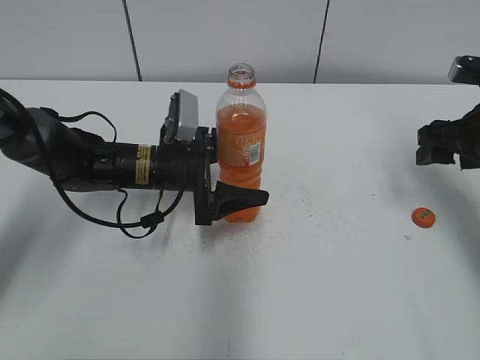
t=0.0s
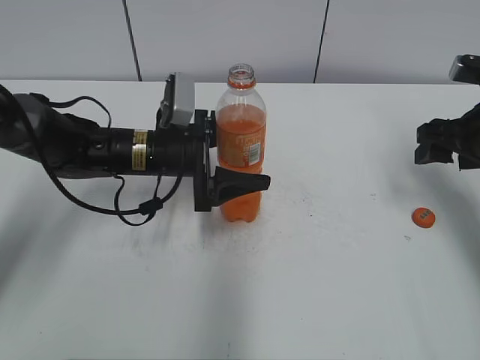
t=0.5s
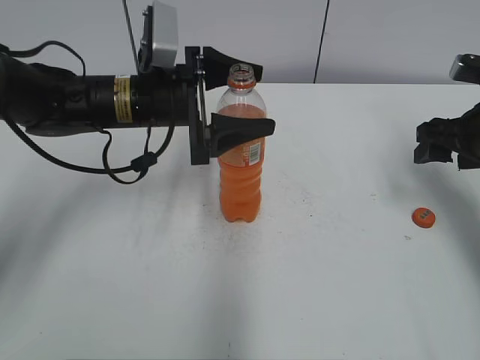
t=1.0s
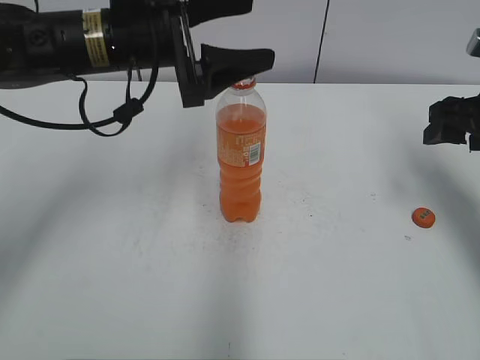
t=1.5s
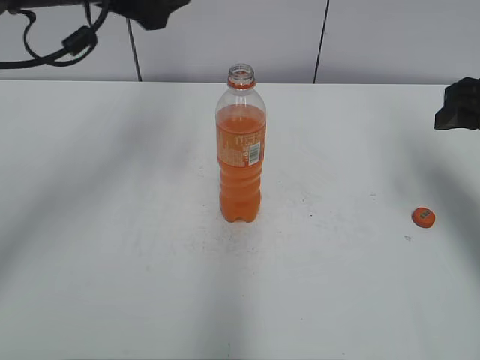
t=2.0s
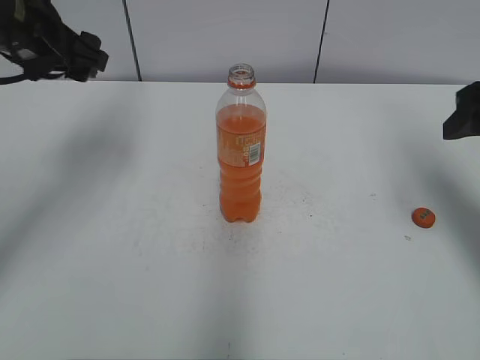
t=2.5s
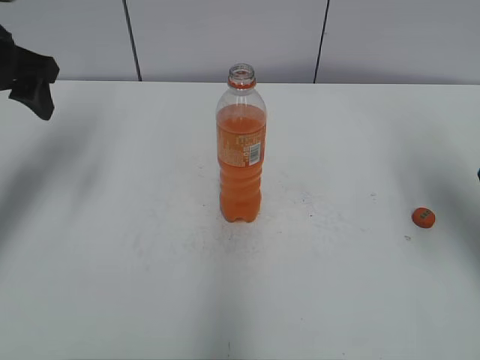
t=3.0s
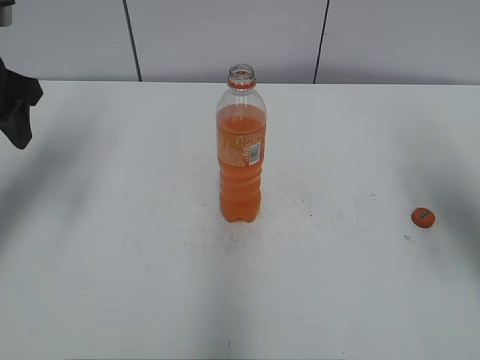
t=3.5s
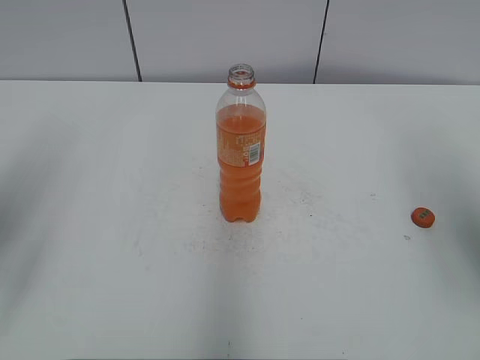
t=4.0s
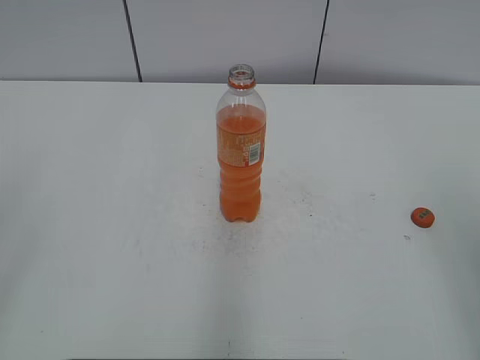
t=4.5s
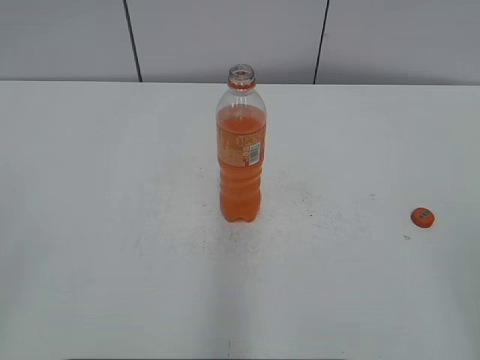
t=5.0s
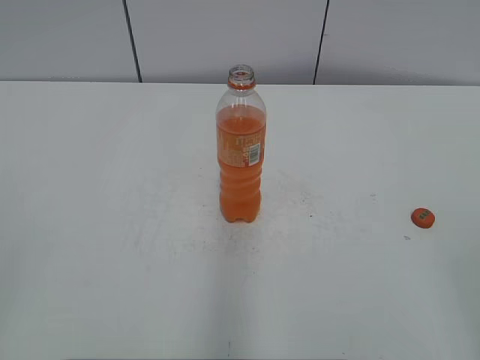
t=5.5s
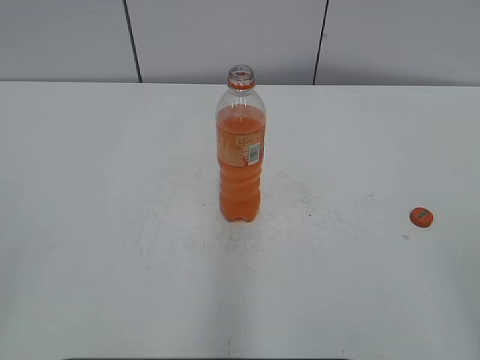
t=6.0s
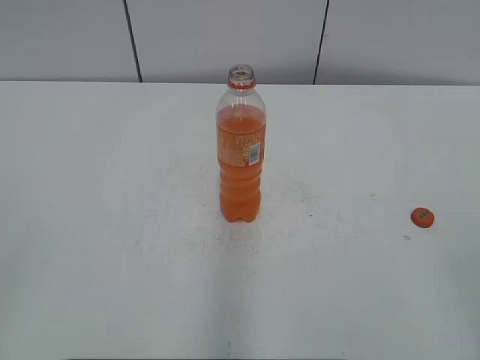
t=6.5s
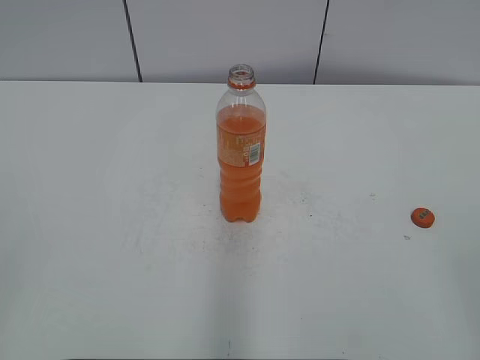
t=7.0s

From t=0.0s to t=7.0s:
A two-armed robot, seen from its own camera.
From t=0.0s to t=2.0s: The right gripper goes about 5 cm upward. The left gripper moves upward, some 25 cm.
From t=2.0s to t=3.5s: The left gripper goes approximately 10 cm to the left, while the right gripper travels backward by some 5 cm.
From t=3.5s to t=5.0s: The grippers both shift backward by about 25 cm.

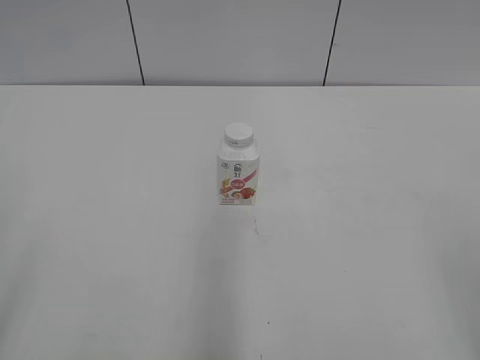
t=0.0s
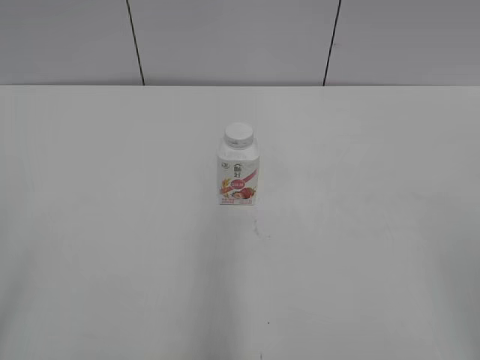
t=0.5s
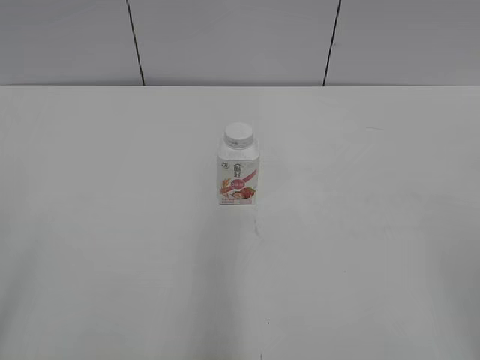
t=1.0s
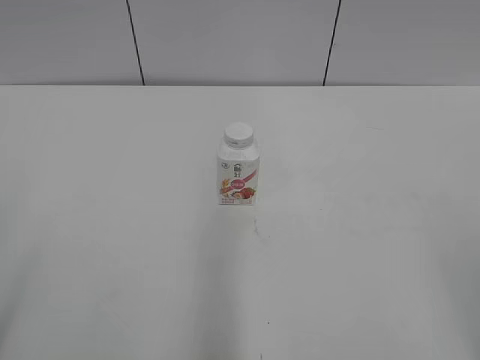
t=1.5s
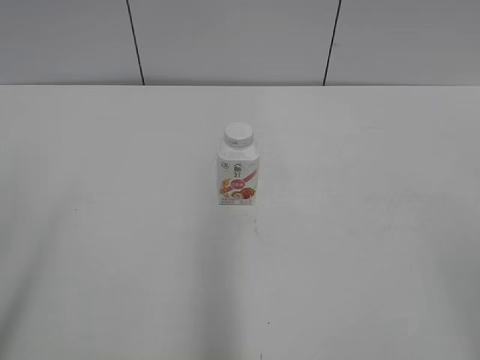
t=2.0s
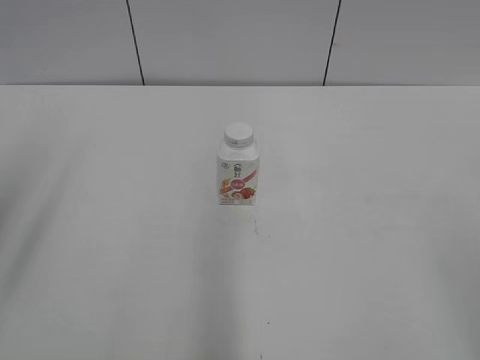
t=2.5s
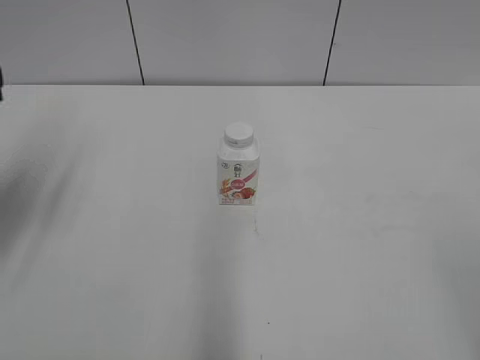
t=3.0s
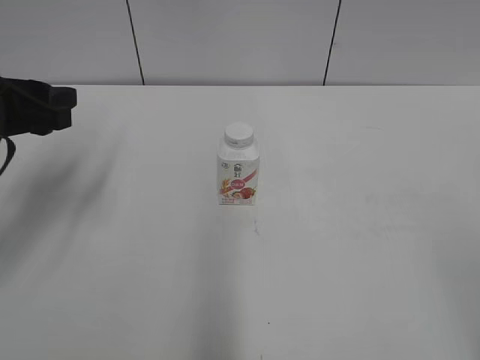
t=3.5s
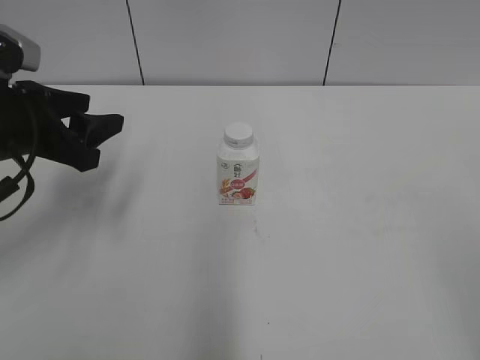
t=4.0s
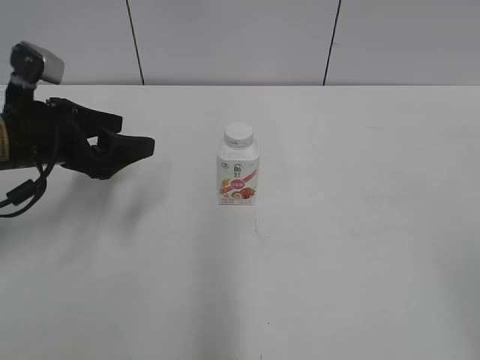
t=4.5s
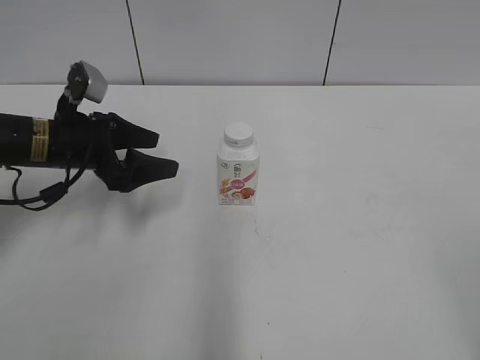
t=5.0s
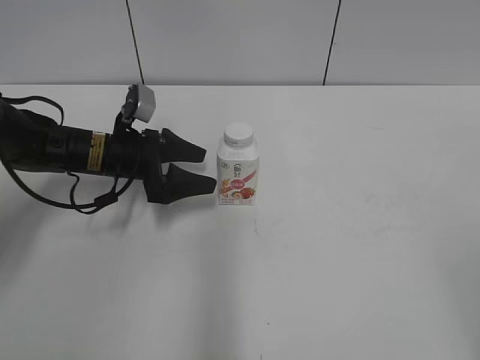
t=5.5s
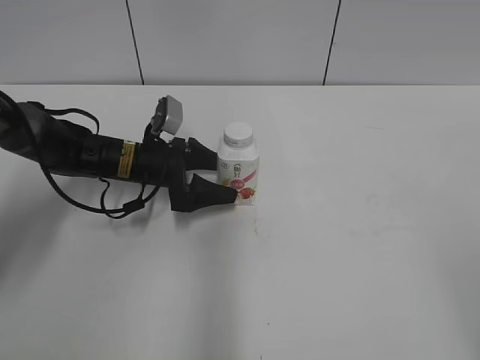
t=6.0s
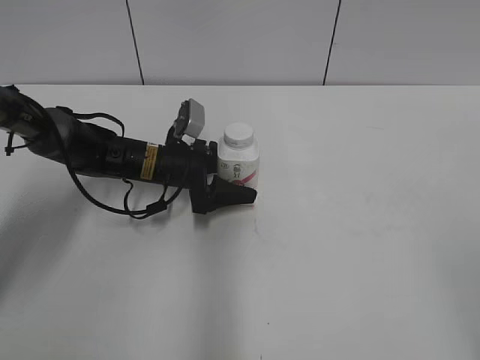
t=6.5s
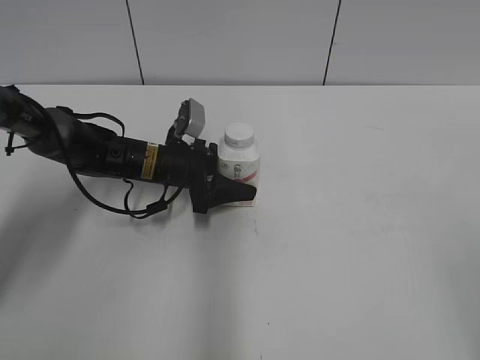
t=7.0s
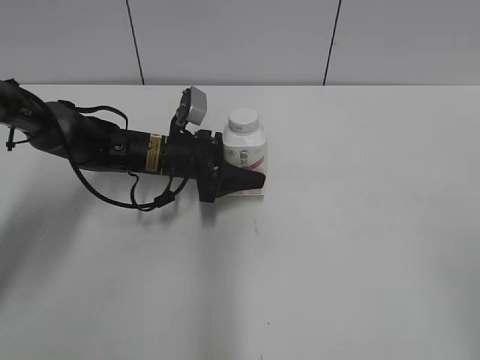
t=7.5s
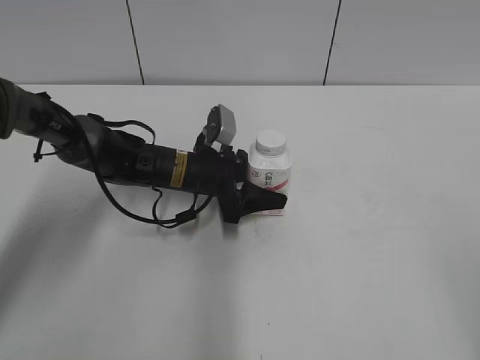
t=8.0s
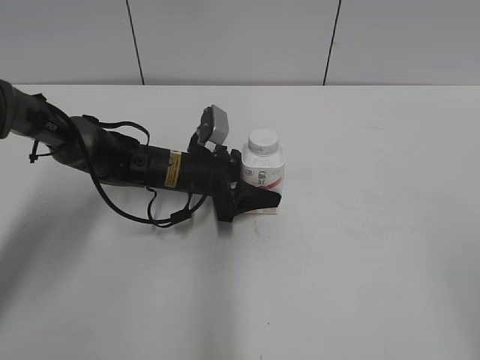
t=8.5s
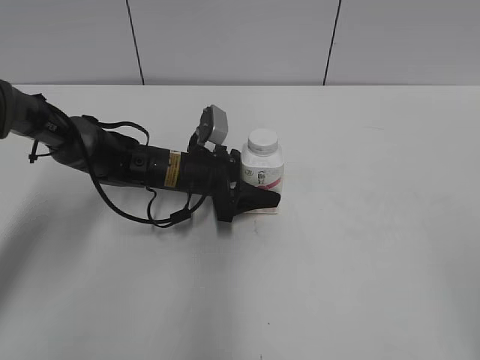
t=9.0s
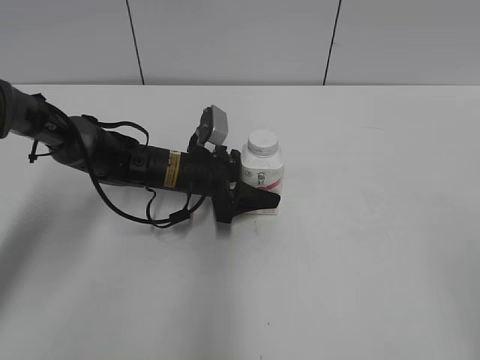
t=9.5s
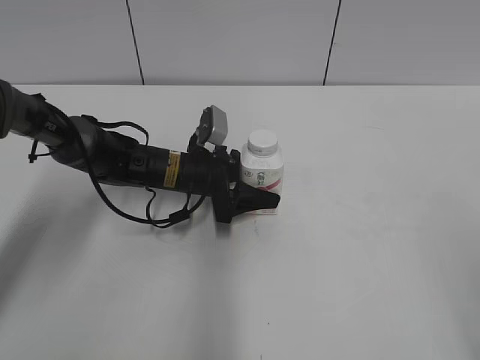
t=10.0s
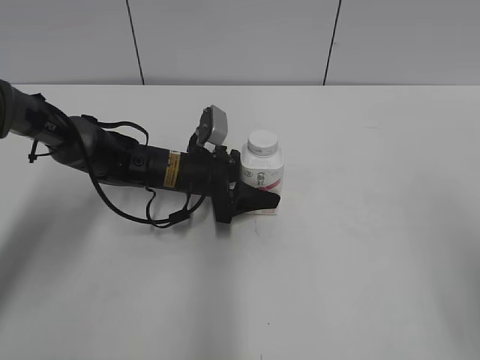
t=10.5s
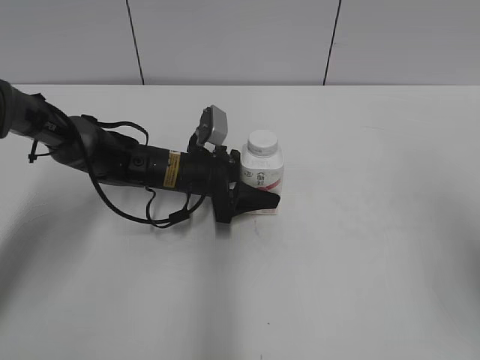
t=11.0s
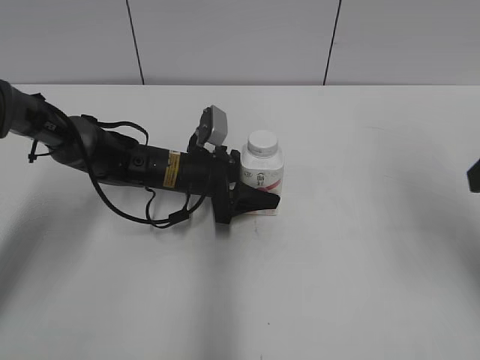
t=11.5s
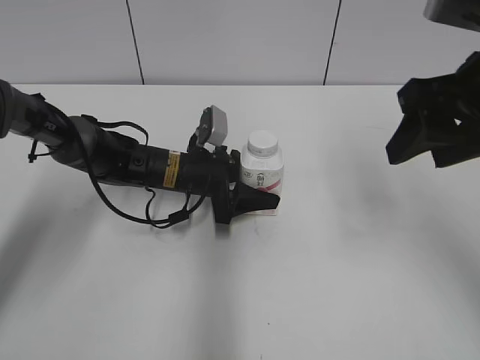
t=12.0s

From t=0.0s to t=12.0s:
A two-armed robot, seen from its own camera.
Step, from t=0.0s to t=6.5s: Grasp the bottle and move it to the center of the table with the left gripper.
Step, from t=7.0s to t=8.0s: Lift the bottle and move it to the center of the table with the left gripper.
From t=2.0s to t=4.0s: The left gripper heads forward and downward, covering roughly 30 cm.
From t=4.0s to t=6.0s: The left gripper goes some 20 cm downward, forward and to the right, and opens up.
From t=6.0s to t=8.0s: The left gripper is displaced to the right by approximately 5 cm, and closes up.
From t=8.0s to t=10.0s: The grippers move only a little.
From t=10.0s to t=12.0s: The right gripper travels forward by about 25 cm.

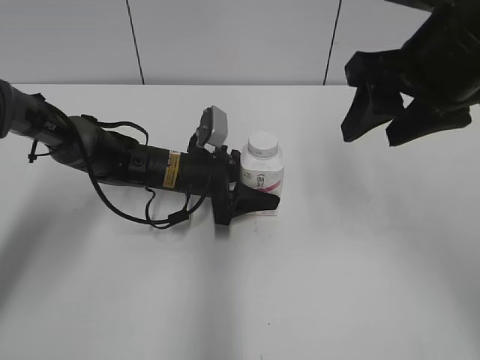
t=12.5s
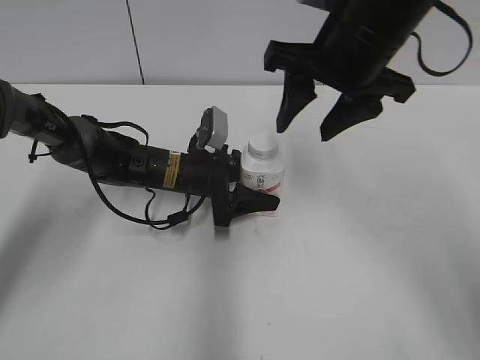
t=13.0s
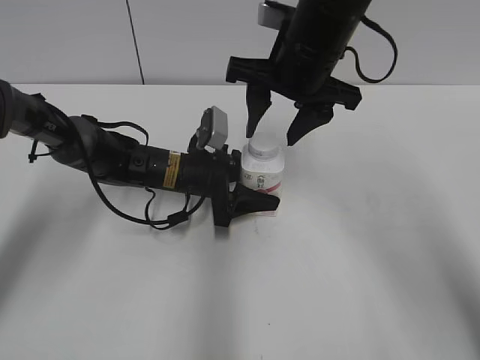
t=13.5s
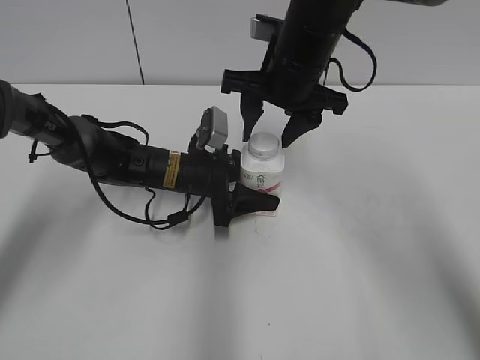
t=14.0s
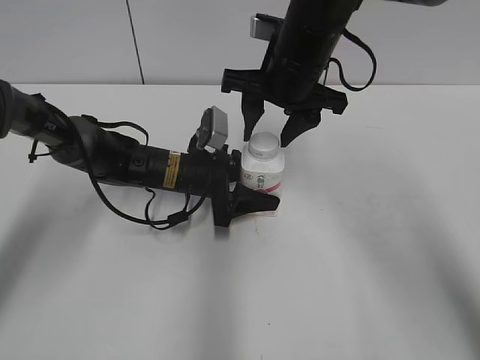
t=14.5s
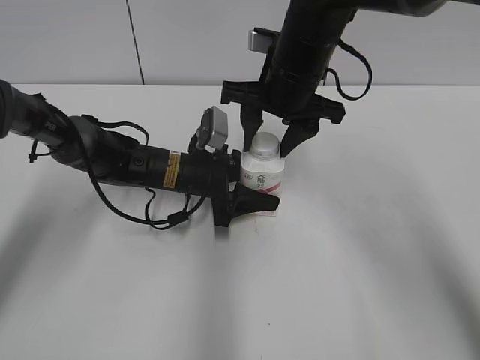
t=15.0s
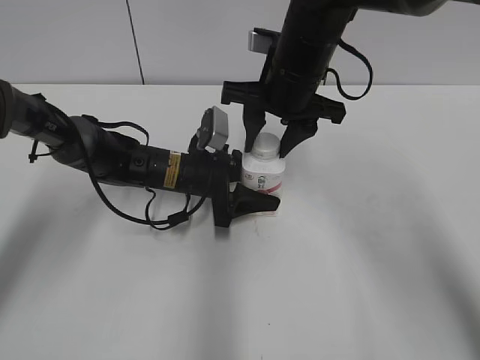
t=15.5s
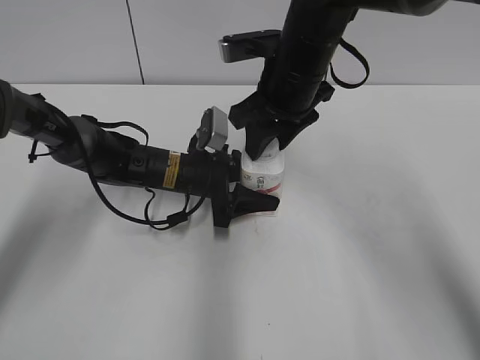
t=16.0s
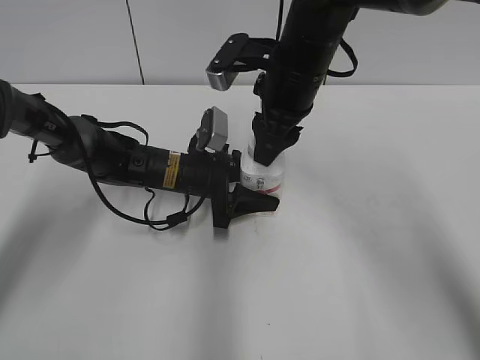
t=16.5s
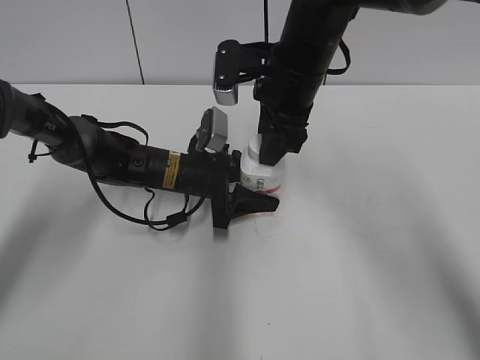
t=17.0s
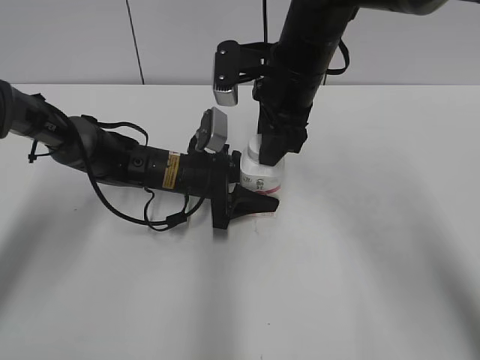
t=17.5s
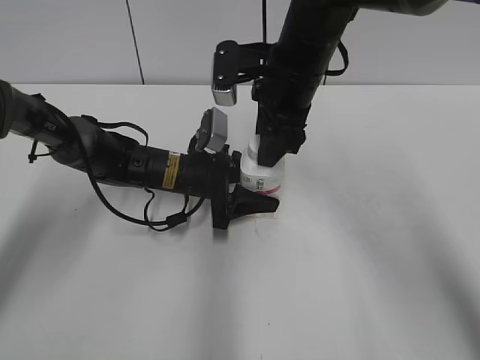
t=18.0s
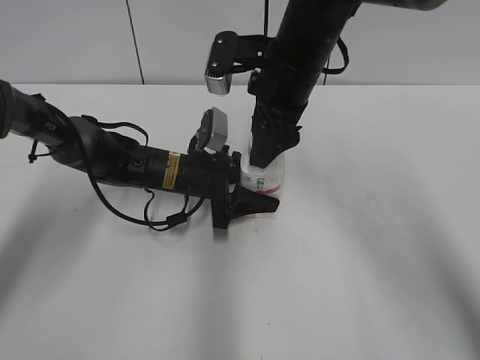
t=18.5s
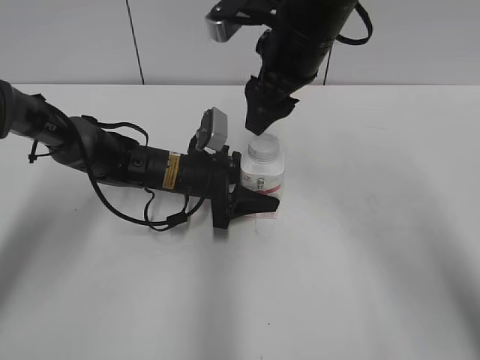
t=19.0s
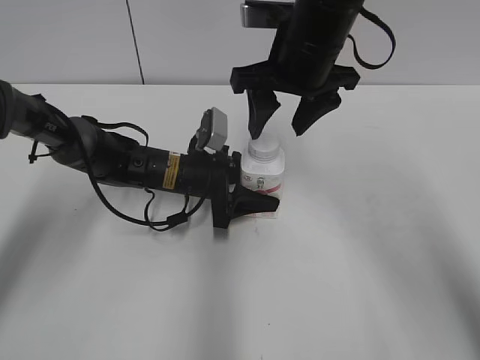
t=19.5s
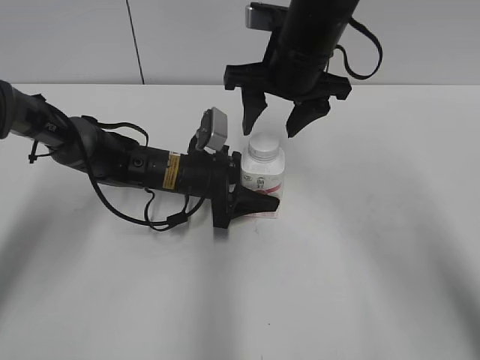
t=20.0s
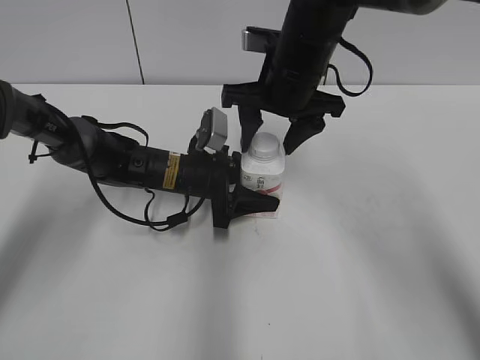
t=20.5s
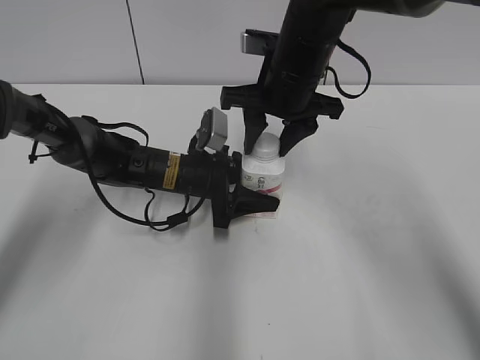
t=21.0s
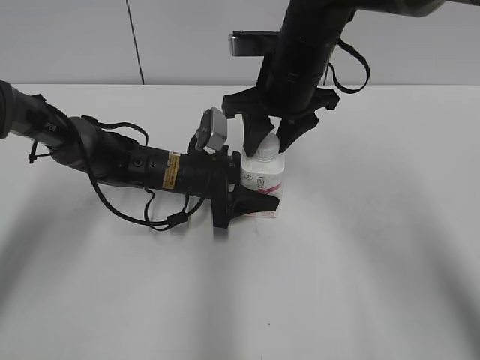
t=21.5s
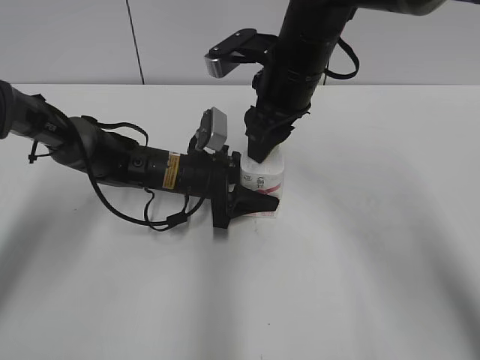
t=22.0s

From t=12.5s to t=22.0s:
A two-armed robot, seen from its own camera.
From t=12.5s to t=14.5s: The right gripper moves forward, to the left and downward, approximately 15 cm.
From t=16.5s to t=18.0s: The grippers stay close to where they were, moving slightly.
From t=18.0s to t=20.0s: The right gripper opens.
From t=20.0s to t=22.0s: The right gripper closes up.
